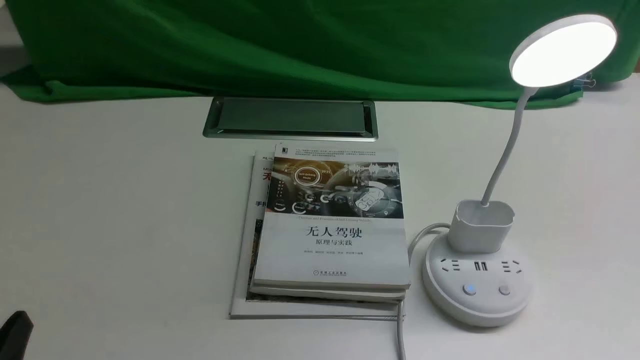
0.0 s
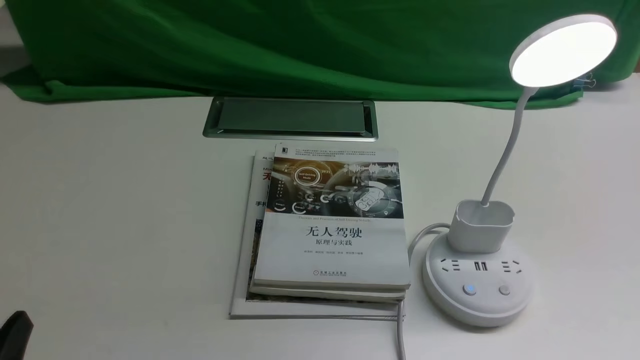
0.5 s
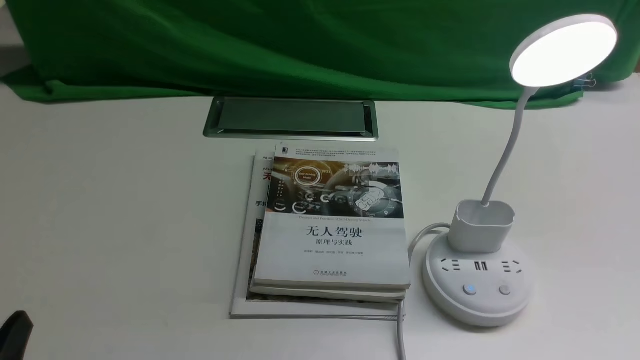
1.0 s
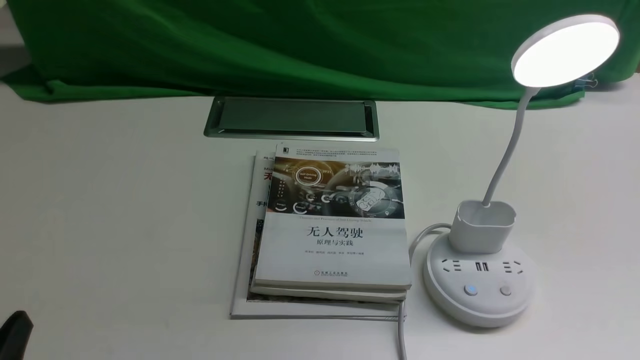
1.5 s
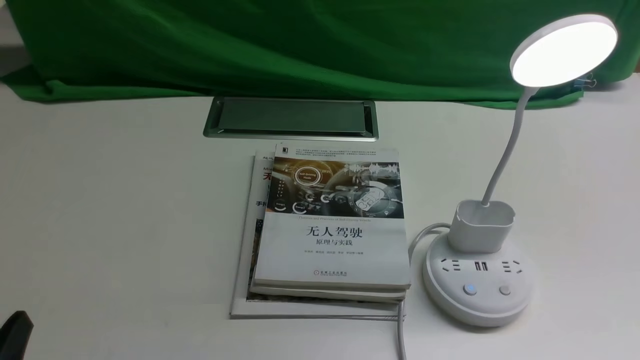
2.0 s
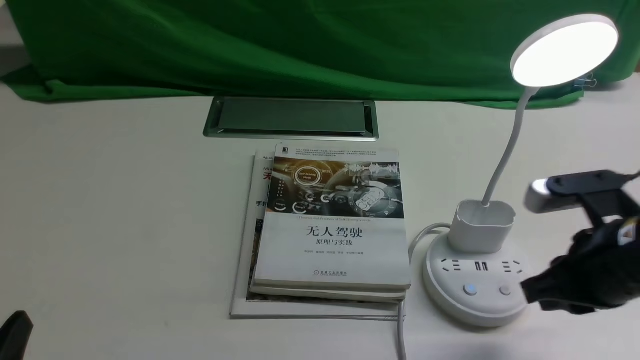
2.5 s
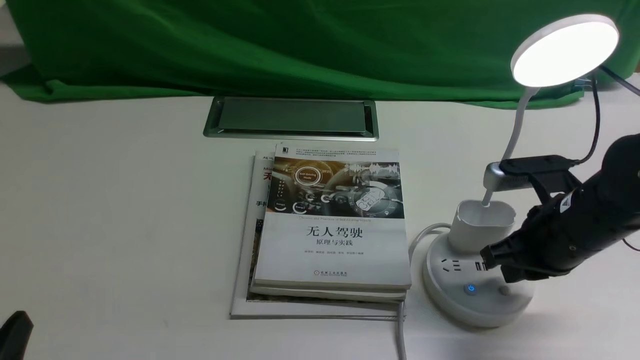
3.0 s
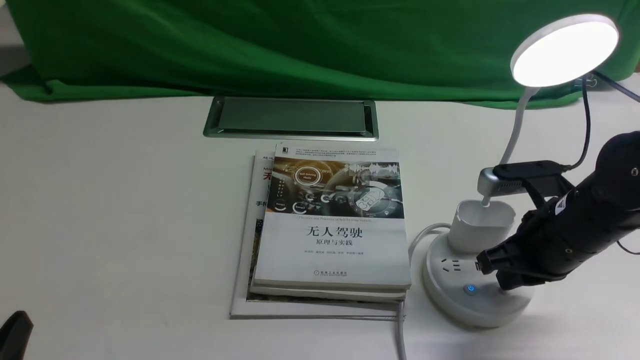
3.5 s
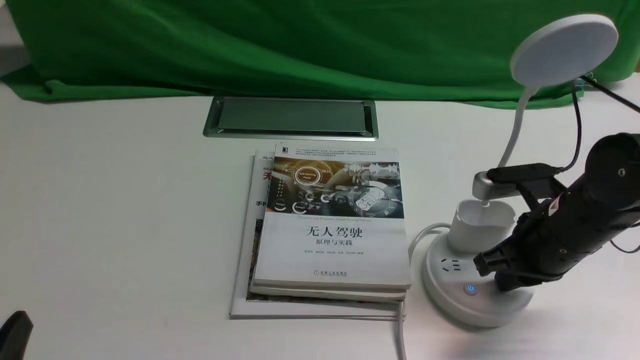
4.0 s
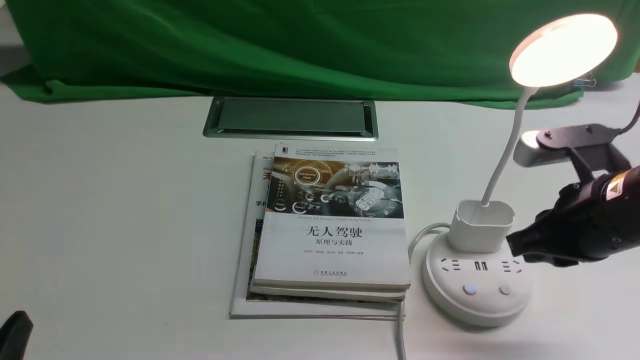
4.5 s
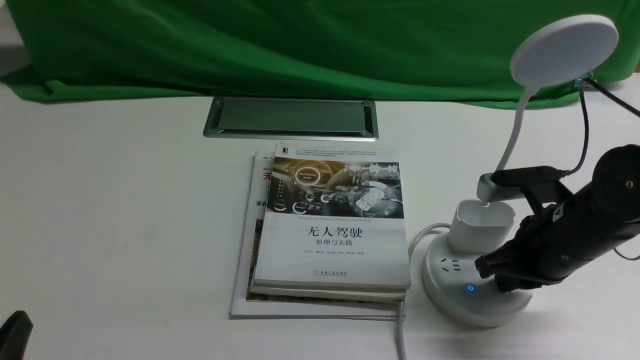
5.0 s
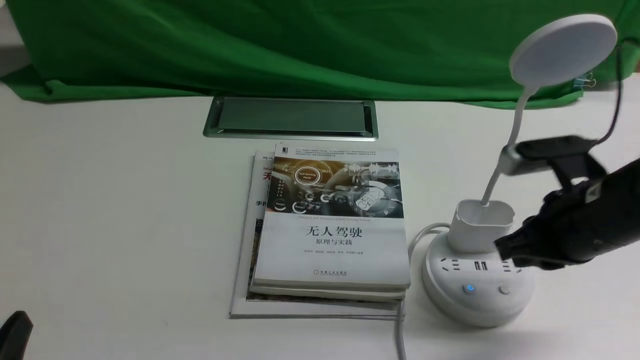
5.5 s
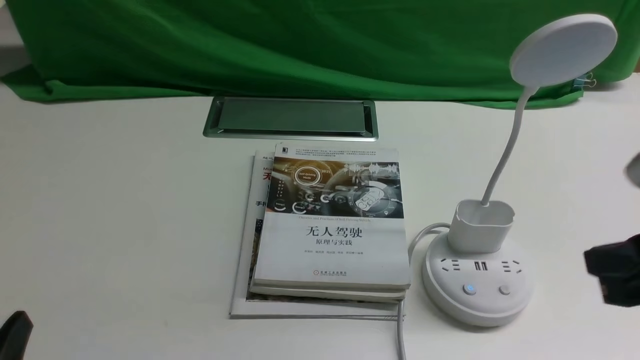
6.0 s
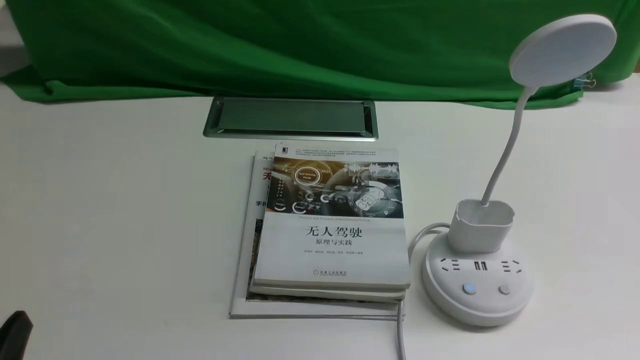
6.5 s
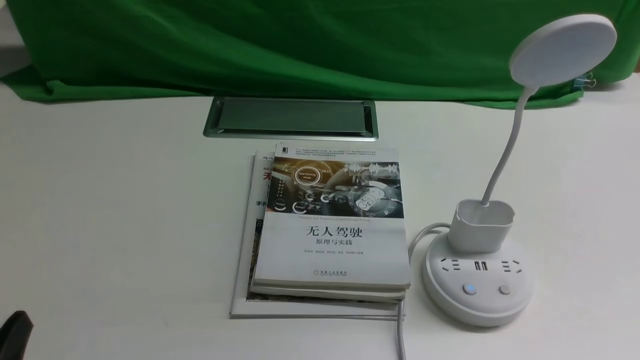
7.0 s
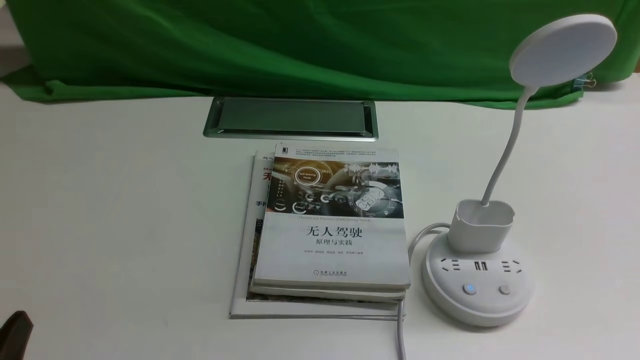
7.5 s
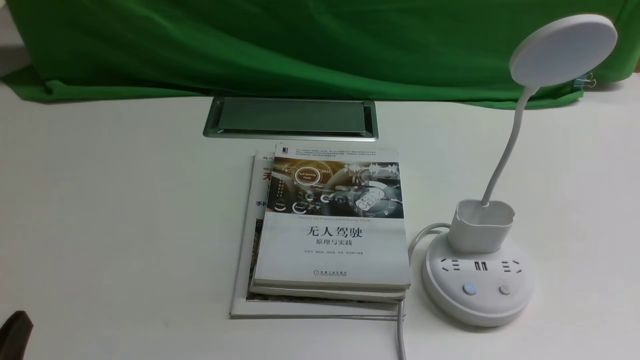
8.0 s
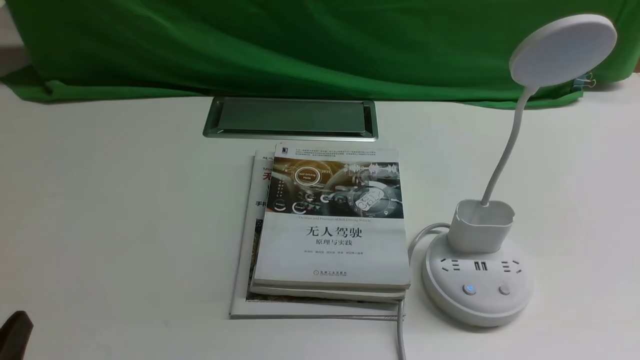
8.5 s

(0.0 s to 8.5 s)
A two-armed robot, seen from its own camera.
Task of the whole recording: turn off the desk lamp on the white desktop by hand.
Step, 0.0 s - 5.0 s: use the right arm to press the button switch on the lamp holder.
2.0 s - 4.0 s: The right gripper heads forward and downward, covering approximately 20 cm, and opens up.
4.0 s - 6.5 s: The right gripper shifts some 20 cm backward and upward, and closes its fingers.
